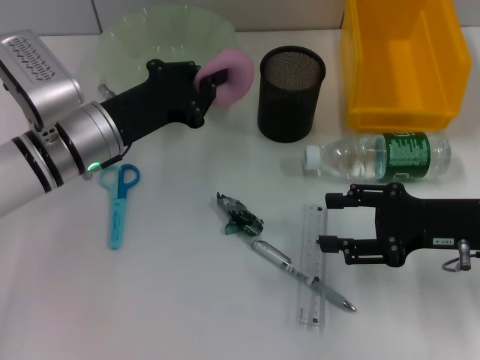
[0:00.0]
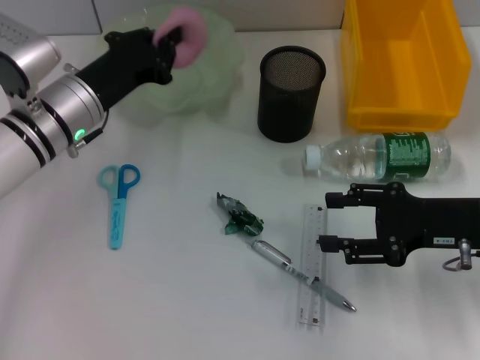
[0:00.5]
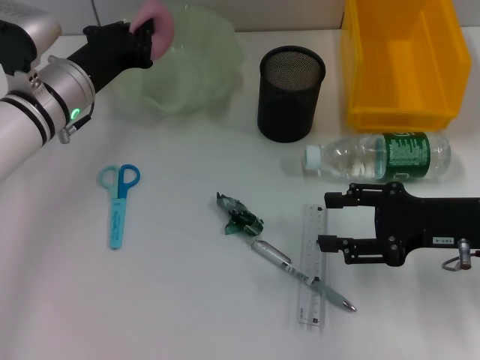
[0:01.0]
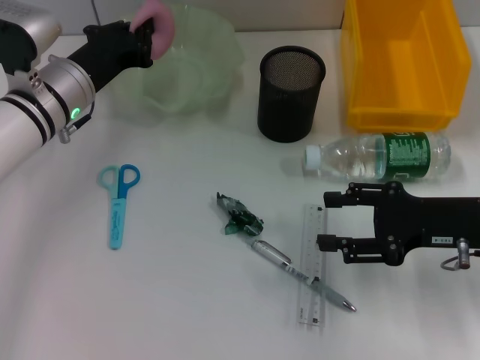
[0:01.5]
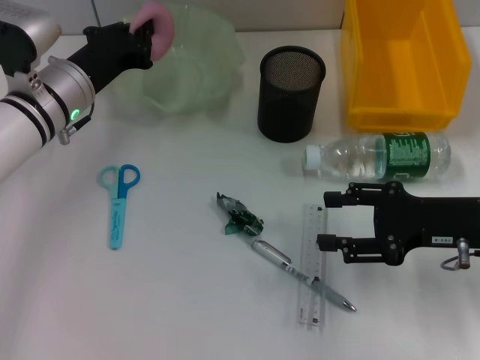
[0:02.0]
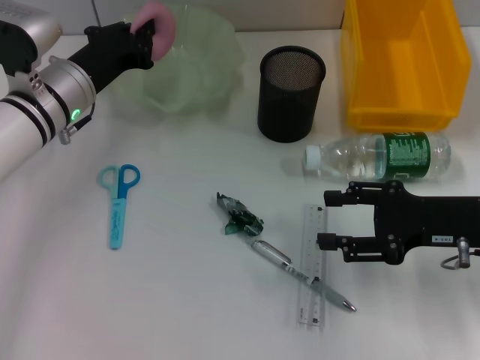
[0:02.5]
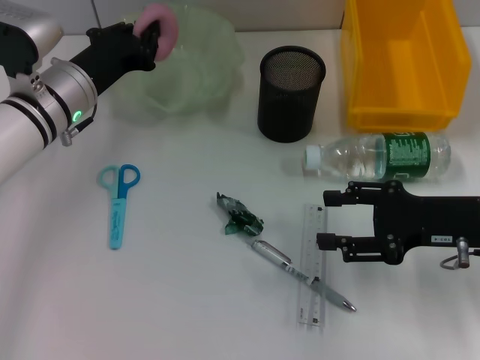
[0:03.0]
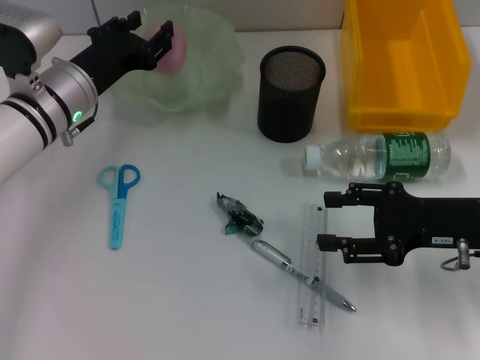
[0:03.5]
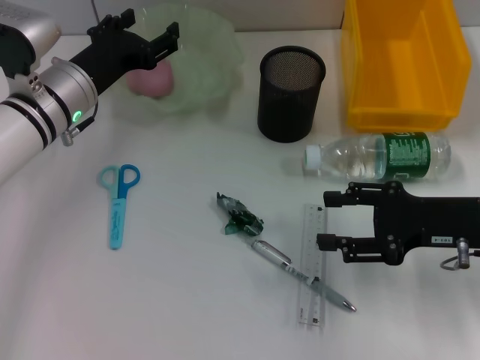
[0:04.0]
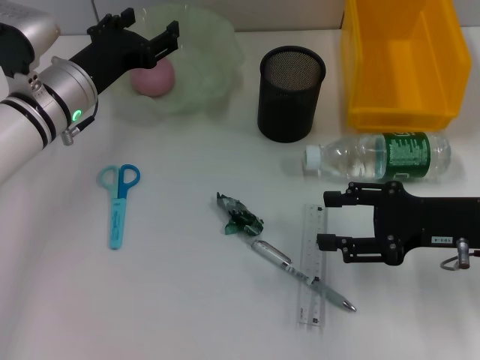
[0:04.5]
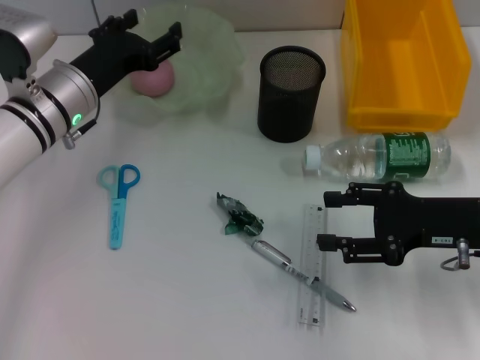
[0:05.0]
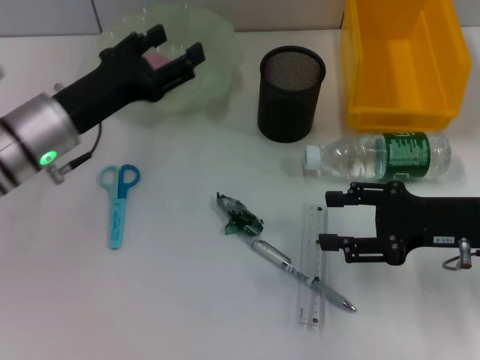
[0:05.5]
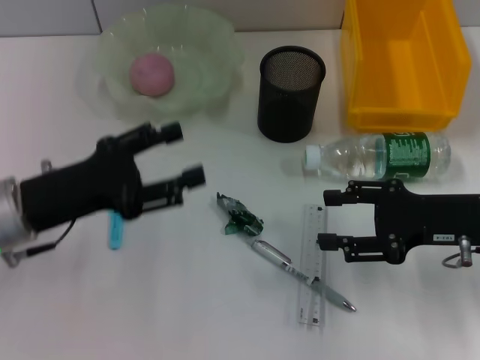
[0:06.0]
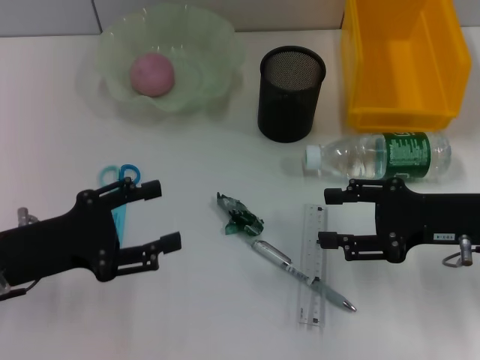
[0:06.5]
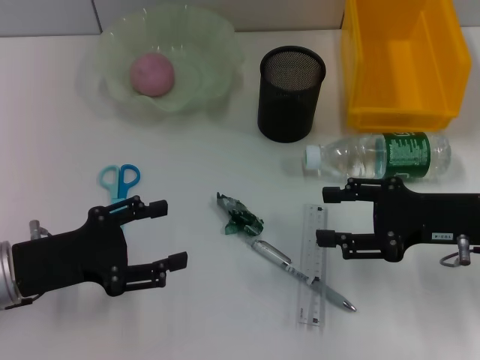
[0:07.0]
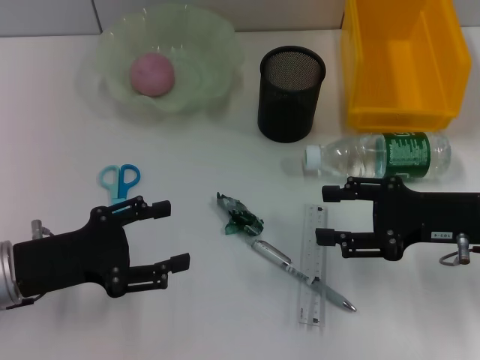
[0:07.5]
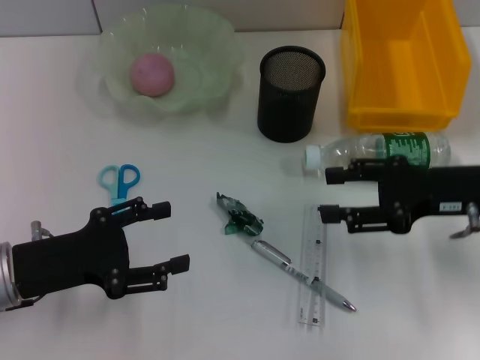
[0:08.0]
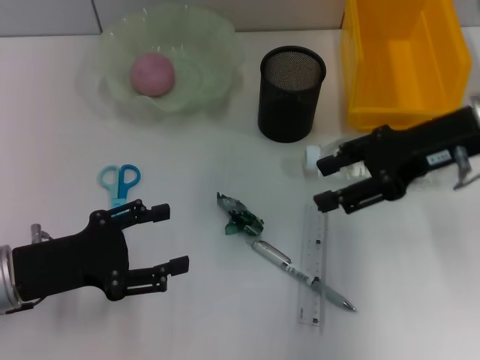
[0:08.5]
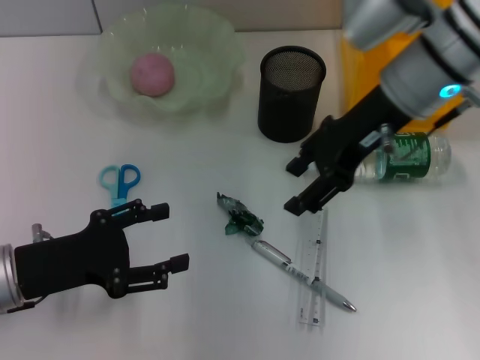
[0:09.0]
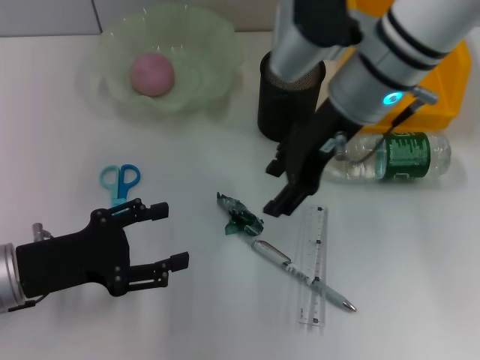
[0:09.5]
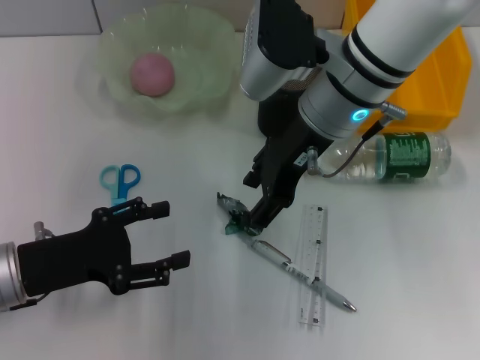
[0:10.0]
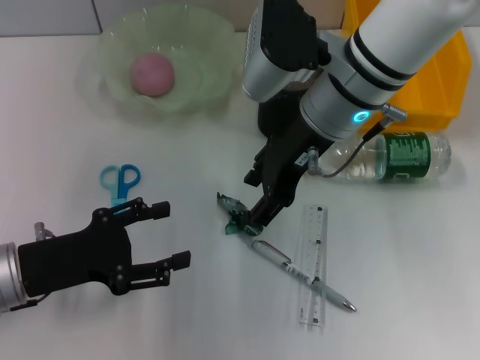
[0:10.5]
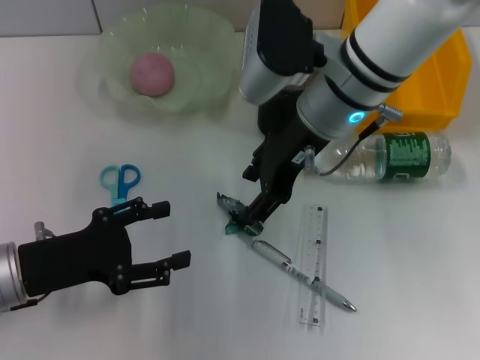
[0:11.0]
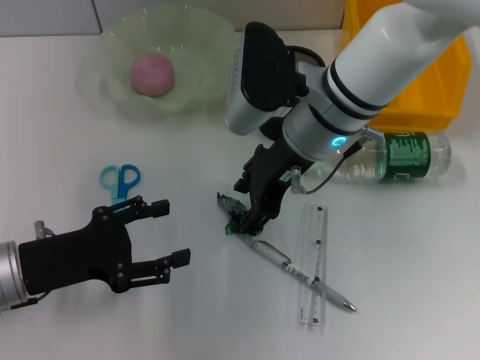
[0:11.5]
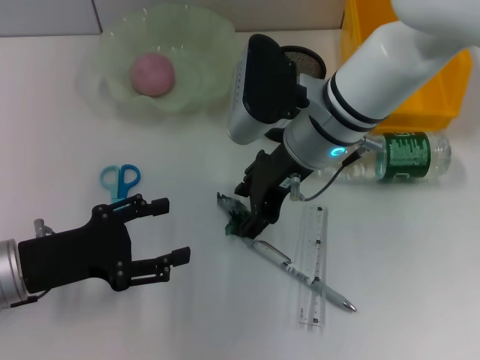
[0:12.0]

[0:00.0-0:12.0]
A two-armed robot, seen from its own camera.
Step, 0:00.0 to 0:04.0: Place the peach into the fruit bowl with the left hand.
0:00.0 to 0:02.0: The left gripper changes place by some 5 cm.
0:02.0 to 0:04.0: The left gripper opens.
0:04.0 to 0:06.0: The left gripper goes about 10 cm backward.
0:06.0 to 0:08.0: The left gripper changes place by approximately 5 cm.
0:08.0 to 0:10.0: The right gripper travels to the left and forward by about 20 cm.
0:10.0 to 0:12.0: The grippers move only a little.

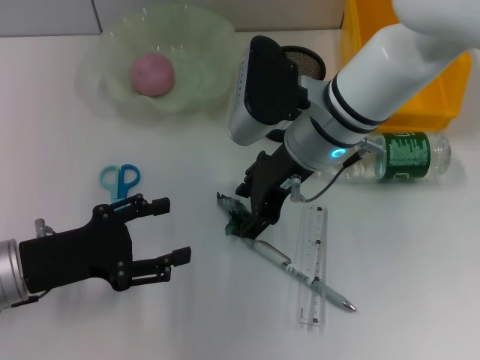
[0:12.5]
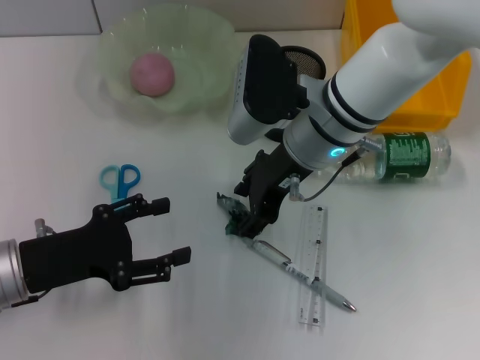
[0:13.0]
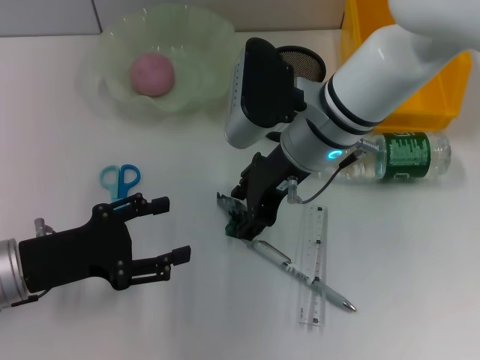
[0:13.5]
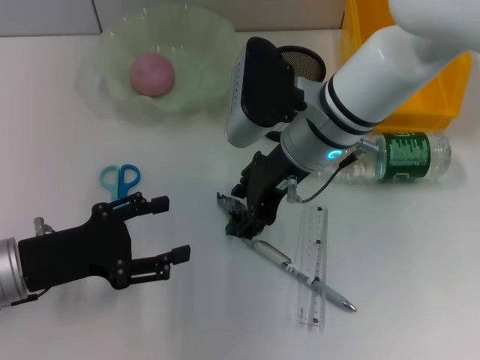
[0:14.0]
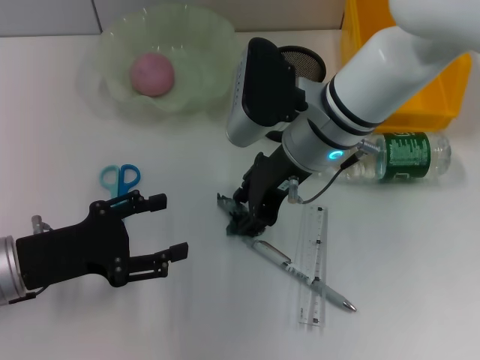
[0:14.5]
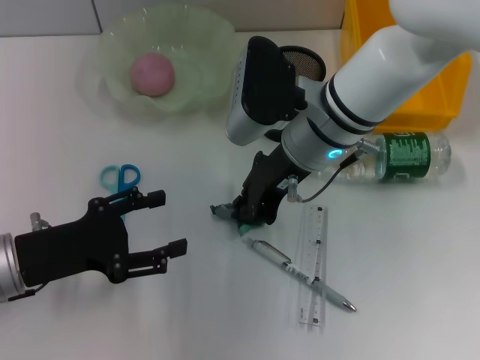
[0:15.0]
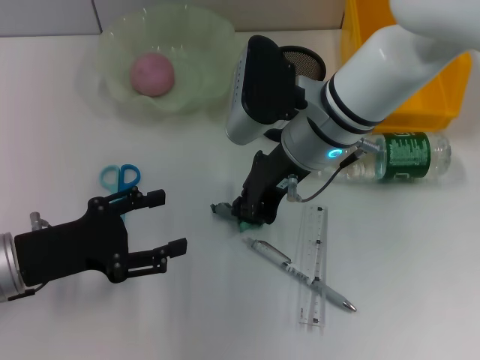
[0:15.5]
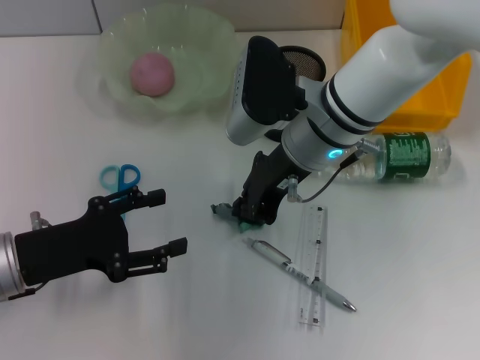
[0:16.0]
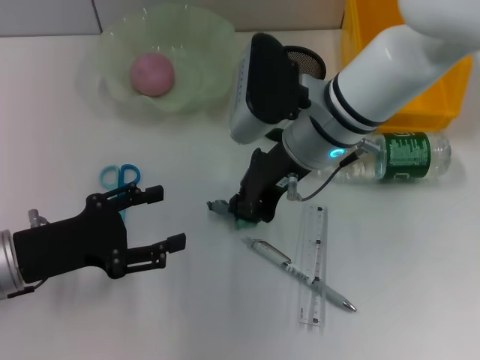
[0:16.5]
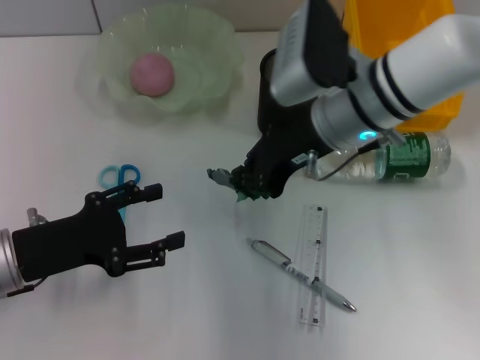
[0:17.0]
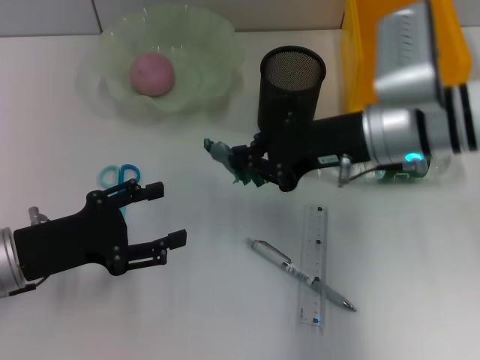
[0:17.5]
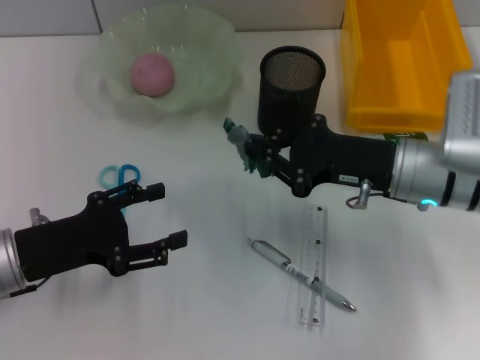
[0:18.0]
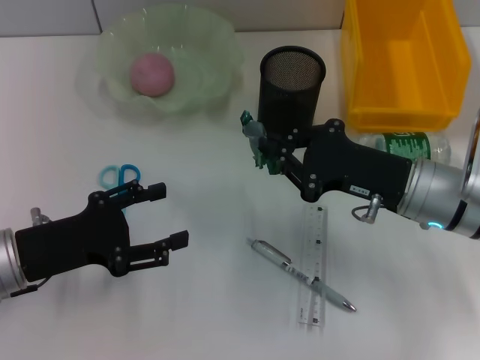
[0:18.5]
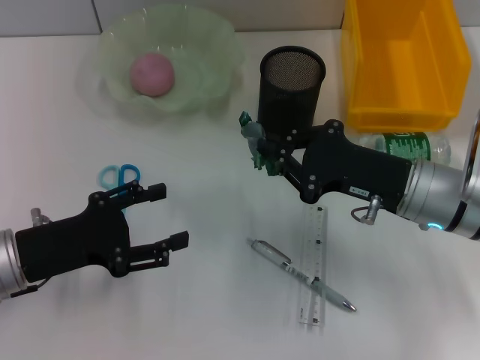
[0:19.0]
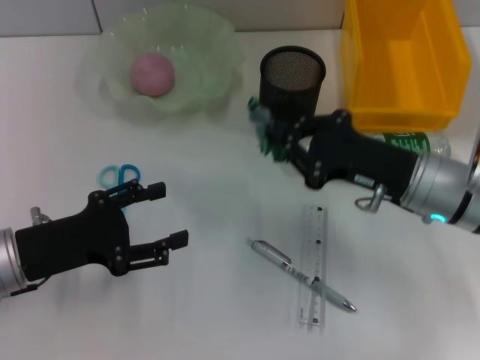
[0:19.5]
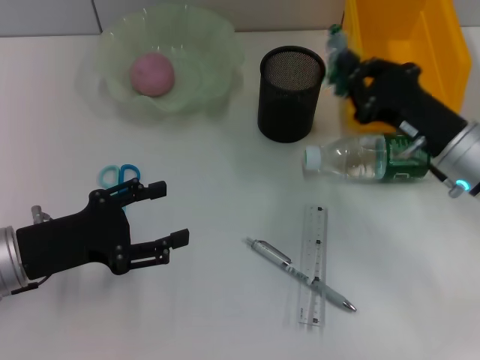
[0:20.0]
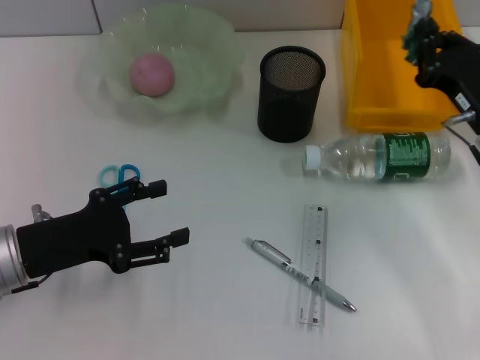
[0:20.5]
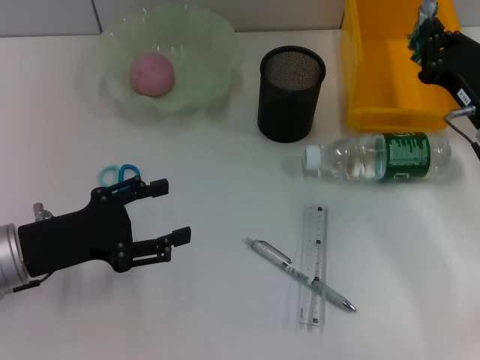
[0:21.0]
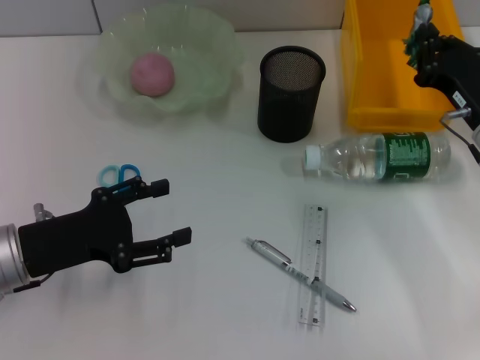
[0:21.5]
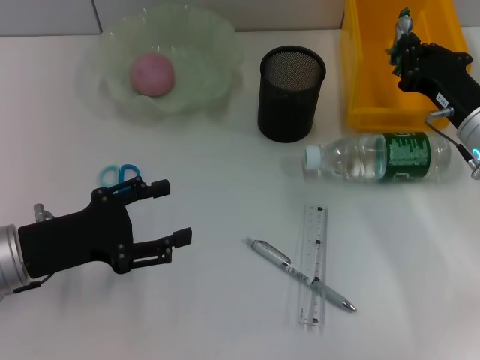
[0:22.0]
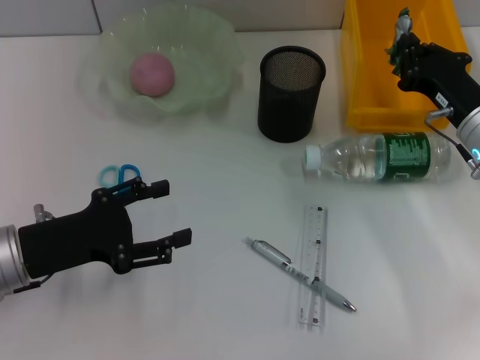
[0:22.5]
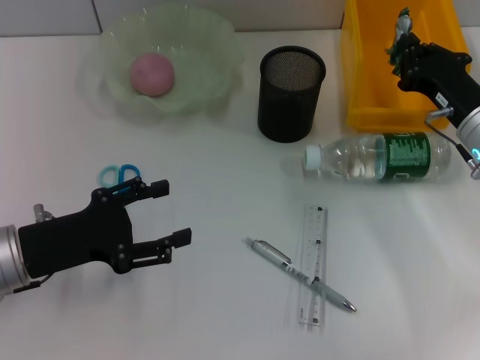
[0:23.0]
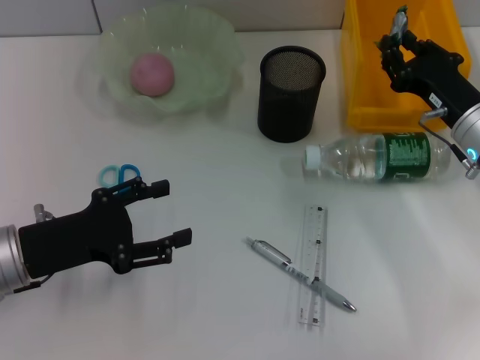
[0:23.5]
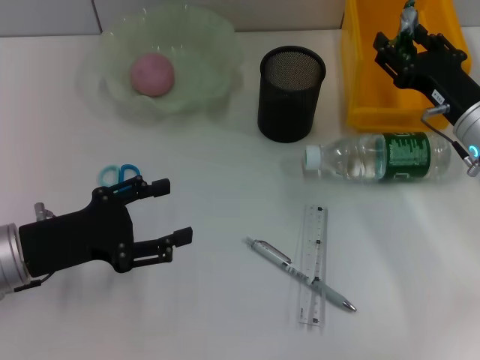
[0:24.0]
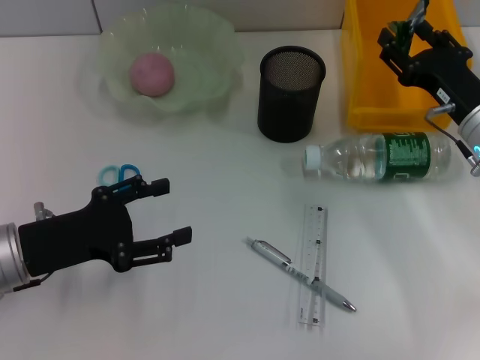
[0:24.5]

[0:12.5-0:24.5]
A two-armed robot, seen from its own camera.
Step, 0:12.5 to 0:15.0: Grab the plastic with the right hand.
0:12.5 to 0:14.5: Neither gripper changes place.
0:14.5 to 0:16.5: The right gripper closes.
0:16.5 to 0:18.5: The right gripper moves to the right, backward and downward, some 15 cm.
0:18.5 to 0:20.5: The right gripper goes approximately 5 cm to the right.
0:20.5 to 0:22.5: The grippers make only small movements.
0:22.5 to 0:24.5: The right gripper opens up.

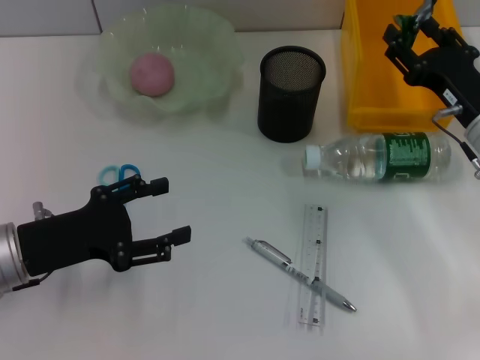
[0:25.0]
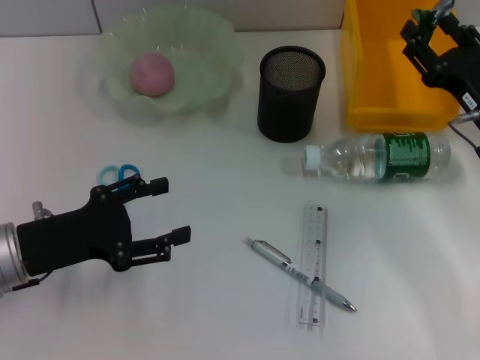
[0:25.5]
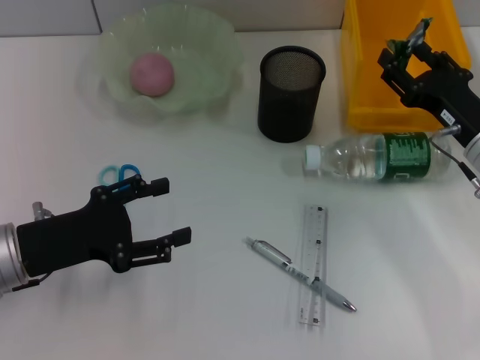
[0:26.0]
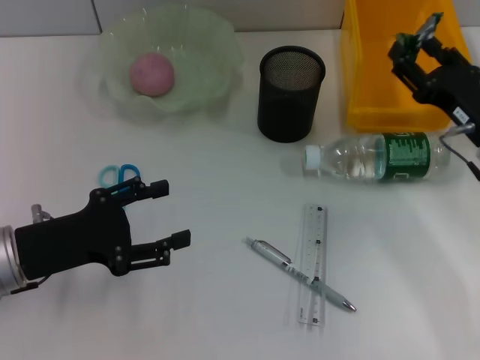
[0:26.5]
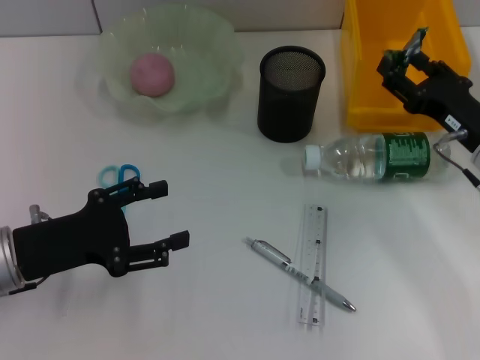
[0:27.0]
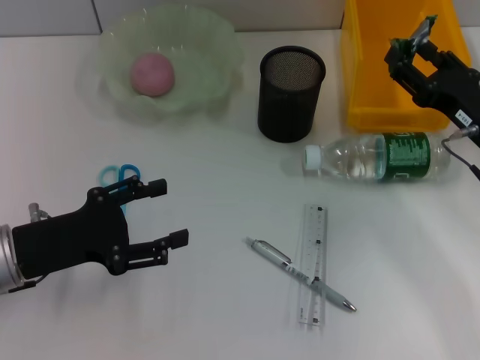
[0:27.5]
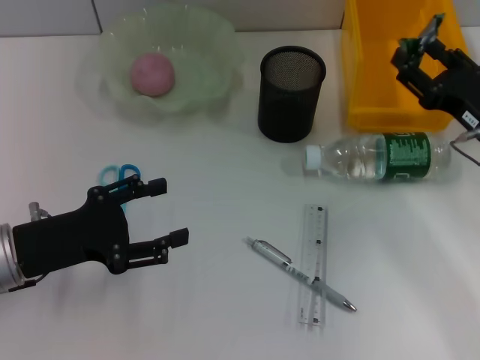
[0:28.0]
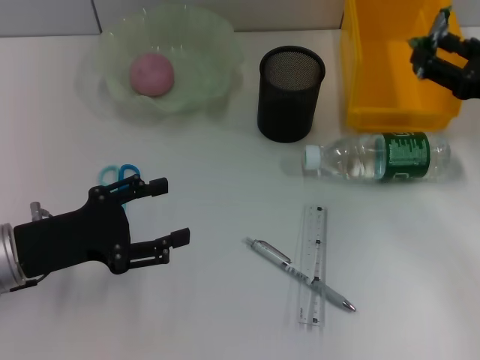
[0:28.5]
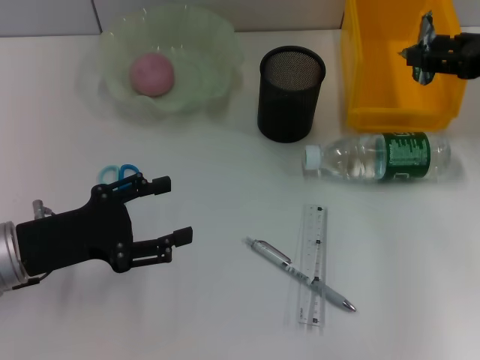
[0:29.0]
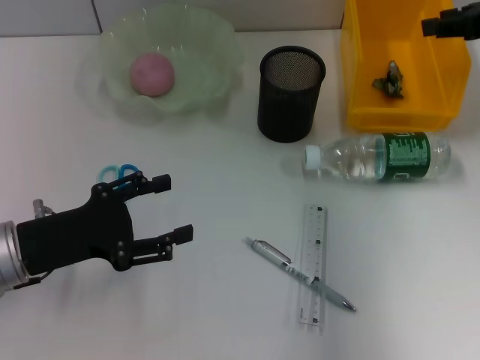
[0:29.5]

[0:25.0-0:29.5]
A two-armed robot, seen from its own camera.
0:25.0 to 0:27.0: The grippers make only small movements.
0:27.0 to 0:29.5: The right gripper moves upward and forward, about 20 cm.
